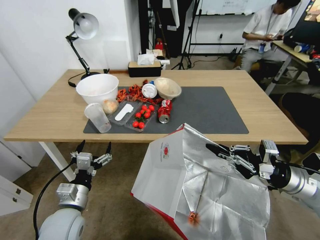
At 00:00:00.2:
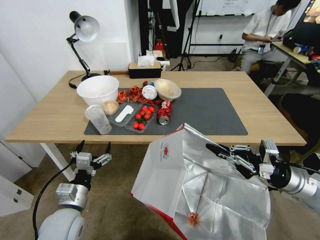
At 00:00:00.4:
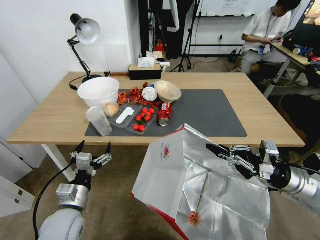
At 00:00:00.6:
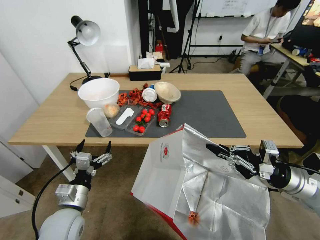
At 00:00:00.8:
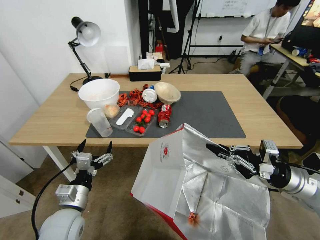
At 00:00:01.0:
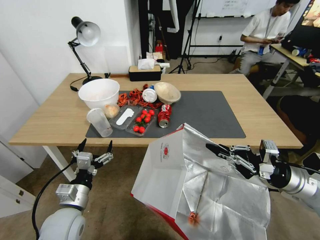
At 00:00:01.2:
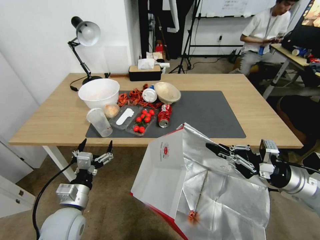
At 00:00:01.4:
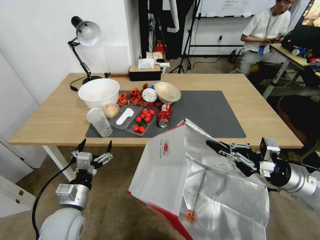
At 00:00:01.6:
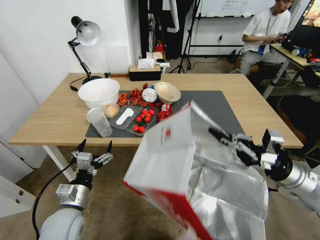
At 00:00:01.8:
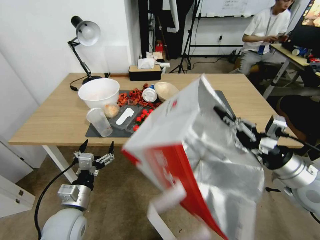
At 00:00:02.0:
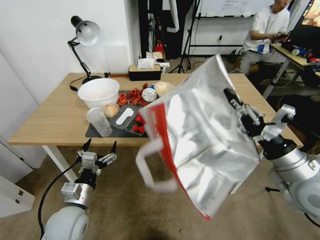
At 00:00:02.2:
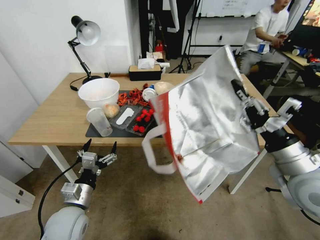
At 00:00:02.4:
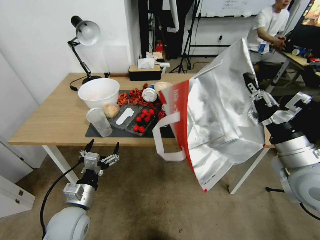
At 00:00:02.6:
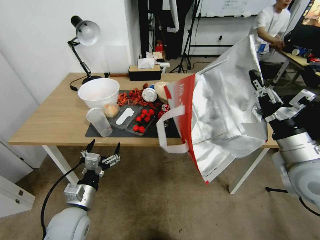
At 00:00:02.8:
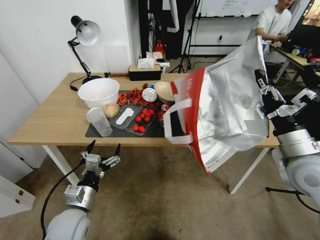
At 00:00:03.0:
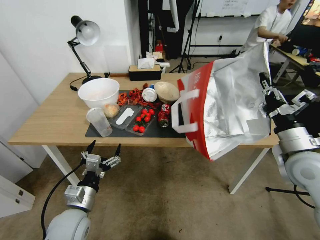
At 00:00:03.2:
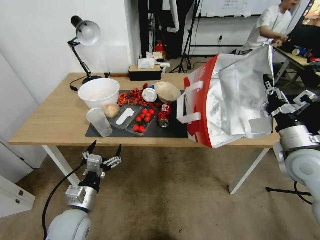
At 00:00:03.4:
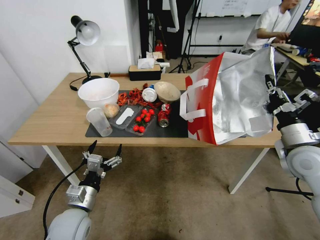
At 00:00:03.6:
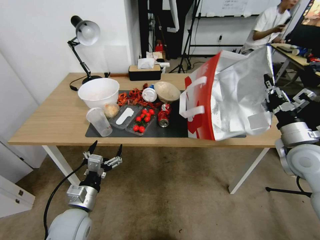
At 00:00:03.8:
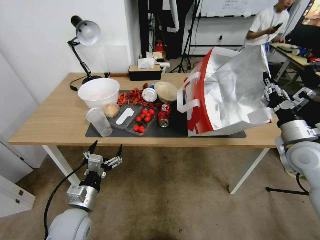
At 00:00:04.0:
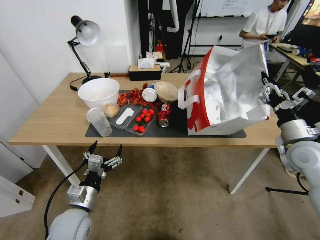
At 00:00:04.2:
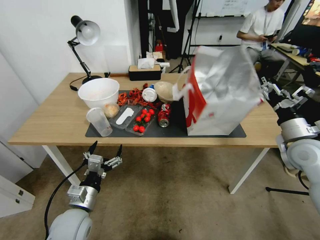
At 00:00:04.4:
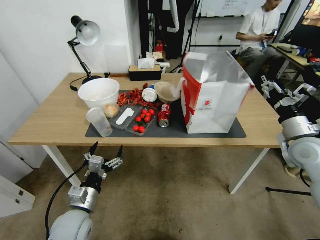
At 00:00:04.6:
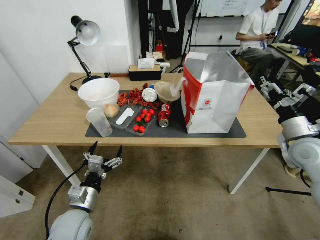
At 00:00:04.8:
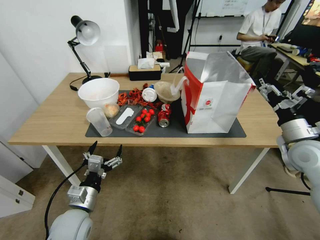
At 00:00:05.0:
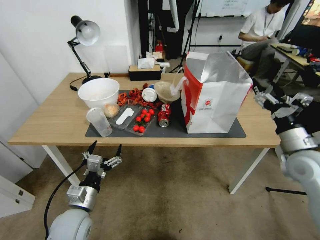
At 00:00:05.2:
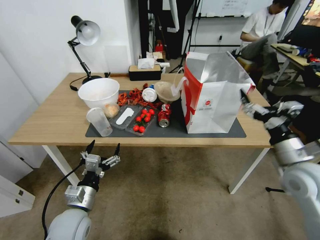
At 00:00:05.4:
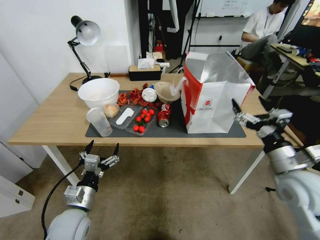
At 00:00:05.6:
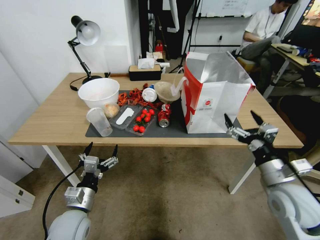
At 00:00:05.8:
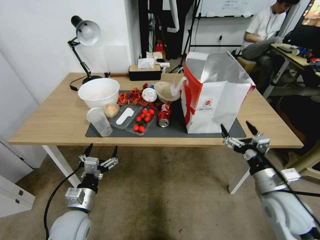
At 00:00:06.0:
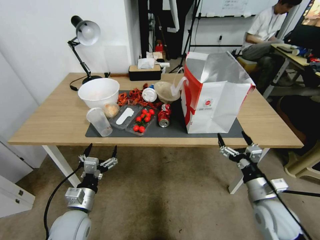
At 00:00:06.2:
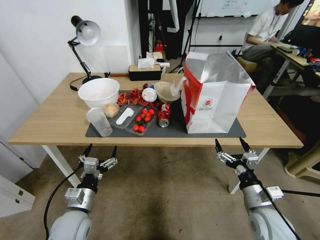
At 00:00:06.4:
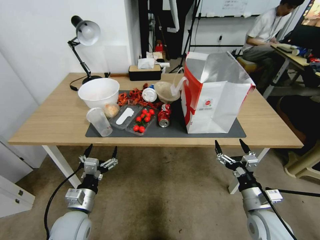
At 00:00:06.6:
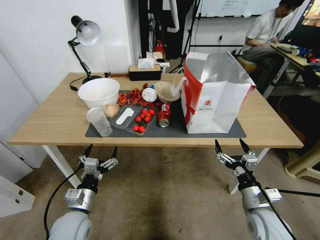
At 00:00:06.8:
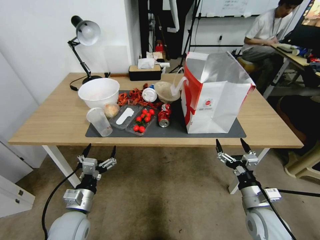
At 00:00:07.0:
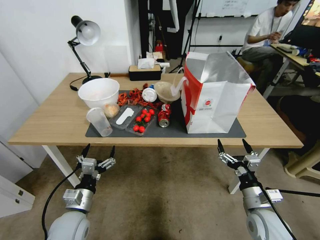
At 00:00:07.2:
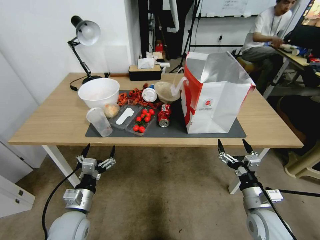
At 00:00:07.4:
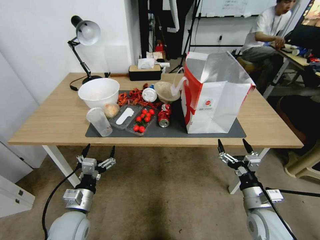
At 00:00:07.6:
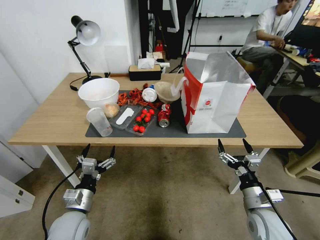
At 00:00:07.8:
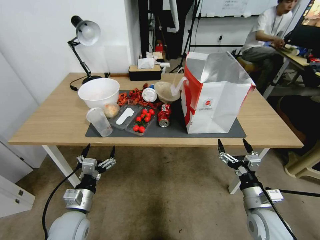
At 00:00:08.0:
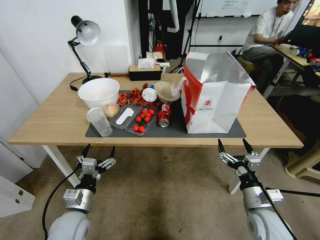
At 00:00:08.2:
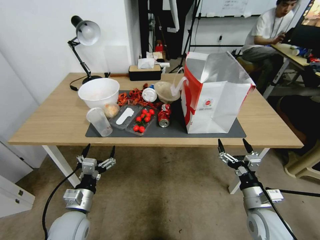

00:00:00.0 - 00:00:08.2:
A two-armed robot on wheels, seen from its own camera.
Task of the whole recording: Pick up the food delivery bag from the floor and place it on the table.
00:00:03.2 - 00:00:05.0: The right gripper opens up.
00:00:05.0 - 00:00:06.6: The right gripper heads downward, backward and to the left, covering roughly 20 cm.
00:00:06.6 - 00:00:08.2: Both grippers stay about where they are.
